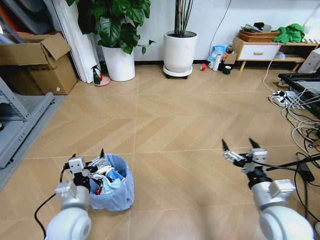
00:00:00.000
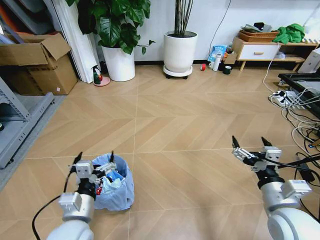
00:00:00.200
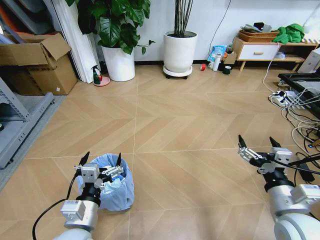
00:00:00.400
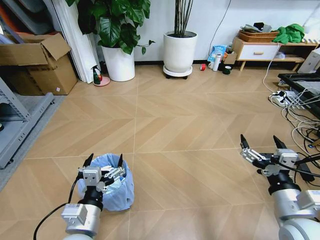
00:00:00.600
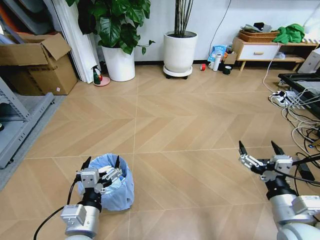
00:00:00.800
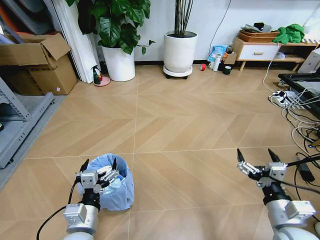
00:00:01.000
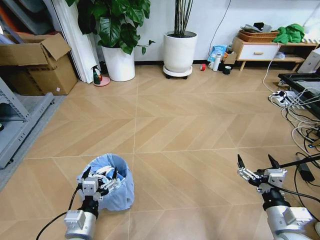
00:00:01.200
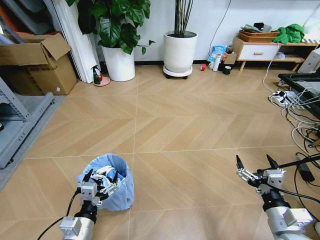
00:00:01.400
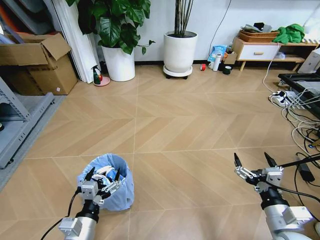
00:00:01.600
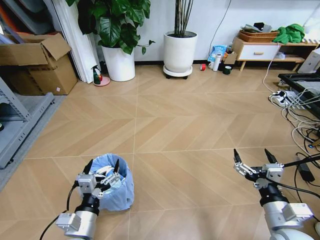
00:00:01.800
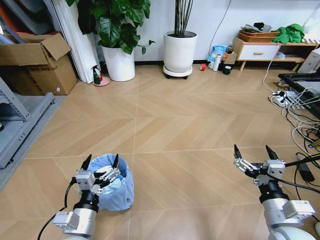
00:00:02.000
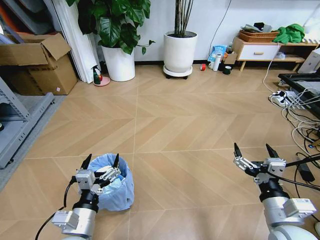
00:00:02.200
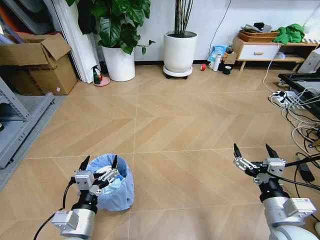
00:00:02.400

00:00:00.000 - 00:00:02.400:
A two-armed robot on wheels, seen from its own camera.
Task of the whole recording: Pick up the trash bin and place the garbage on the floor into it.
00:00:00.000 - 00:00:01.200: The two grippers go approximately 5 cm backward.
00:00:01.200 - 00:00:02.400: The right gripper moves roughly 5 cm.
